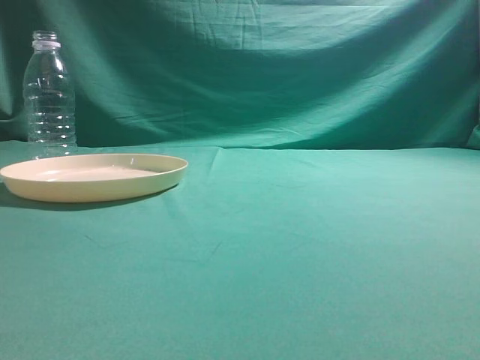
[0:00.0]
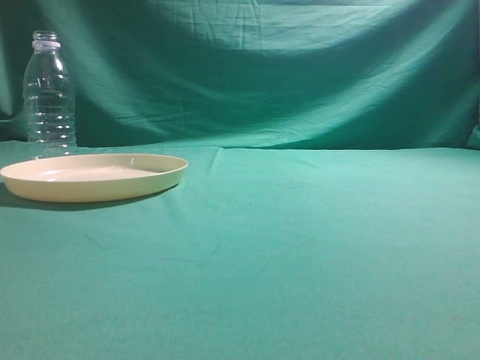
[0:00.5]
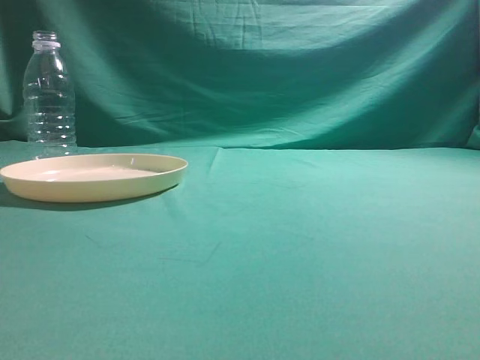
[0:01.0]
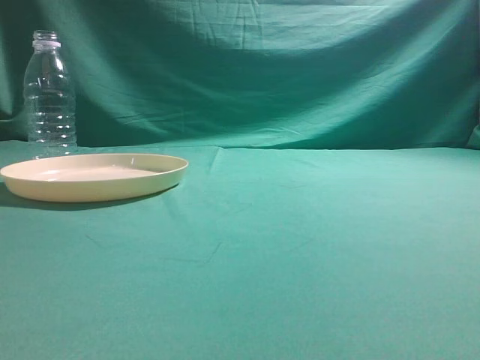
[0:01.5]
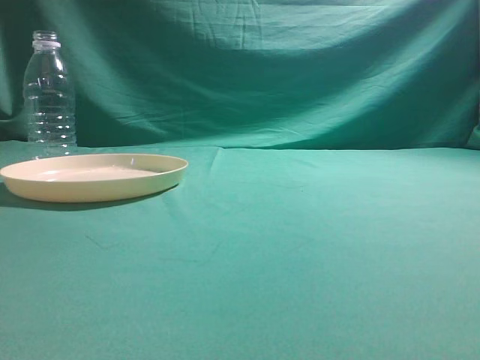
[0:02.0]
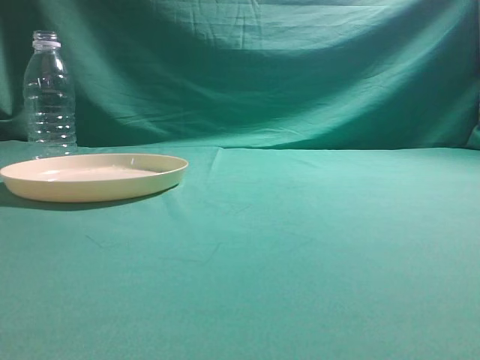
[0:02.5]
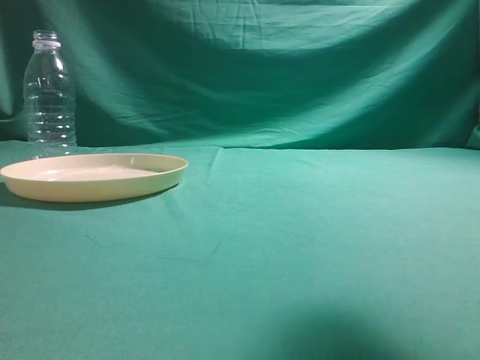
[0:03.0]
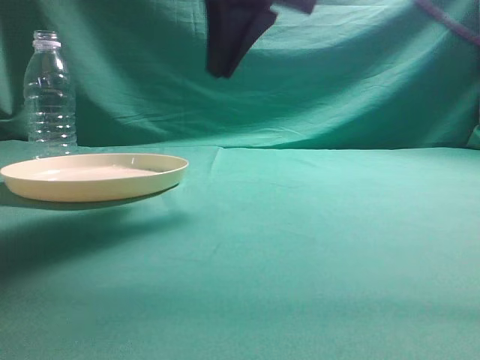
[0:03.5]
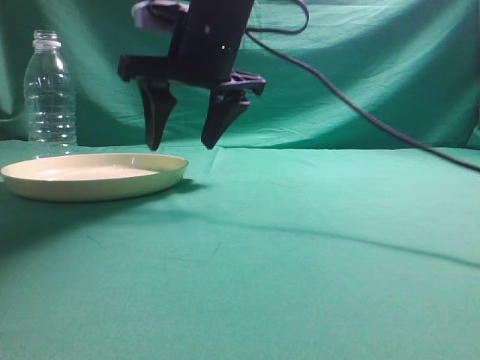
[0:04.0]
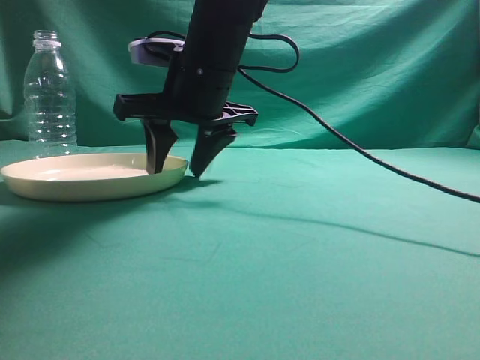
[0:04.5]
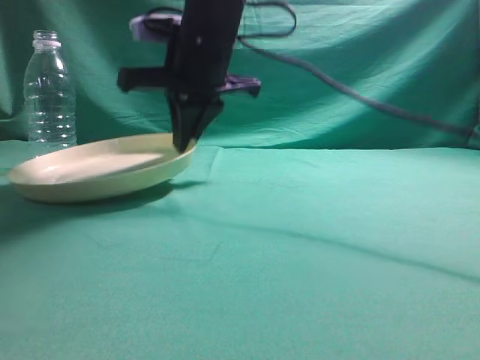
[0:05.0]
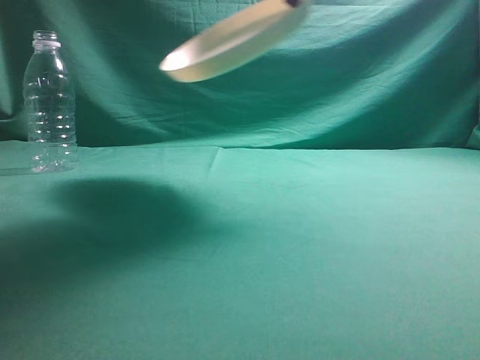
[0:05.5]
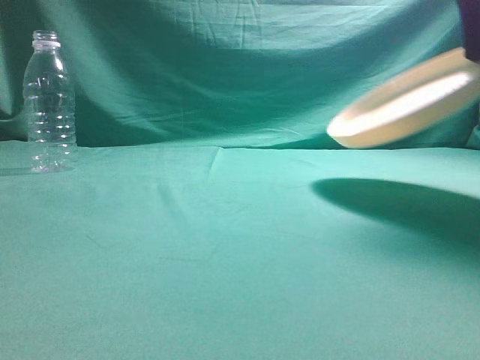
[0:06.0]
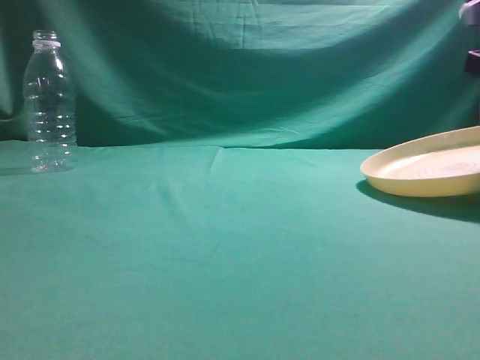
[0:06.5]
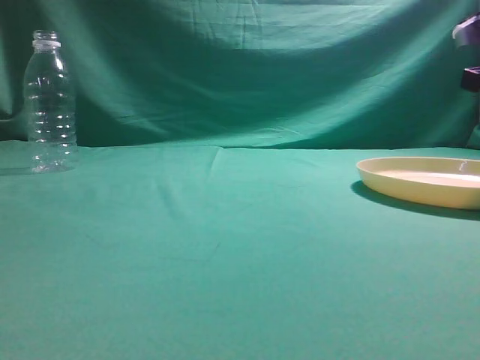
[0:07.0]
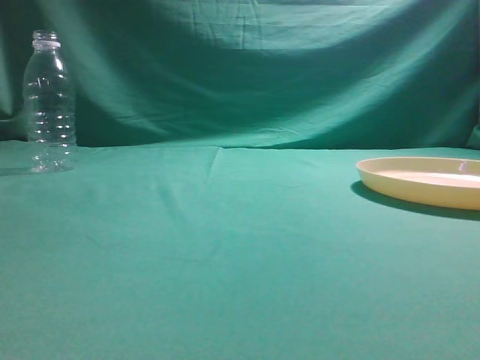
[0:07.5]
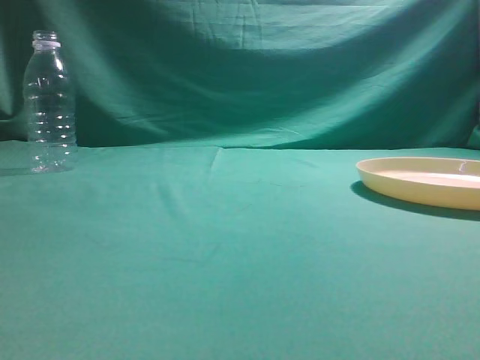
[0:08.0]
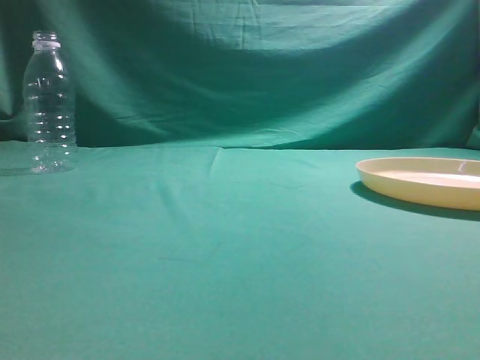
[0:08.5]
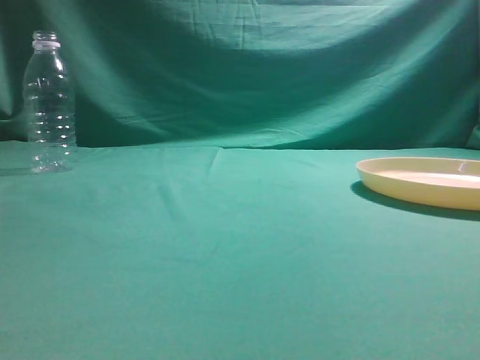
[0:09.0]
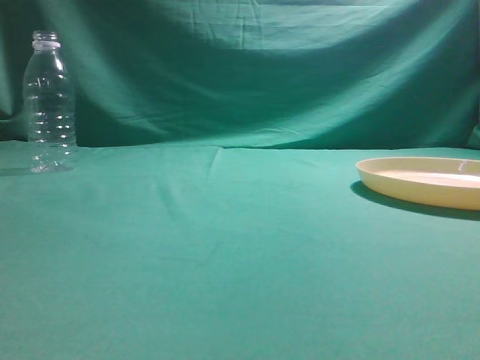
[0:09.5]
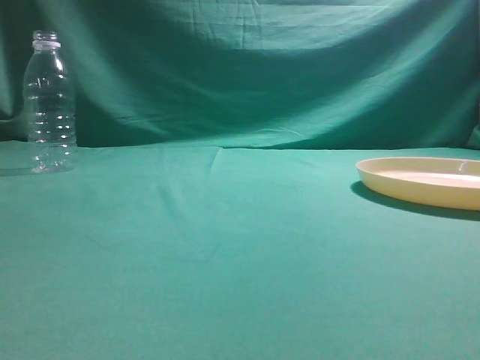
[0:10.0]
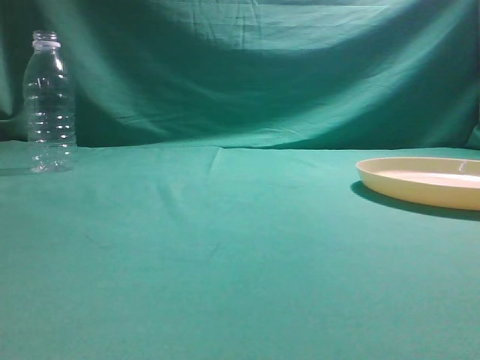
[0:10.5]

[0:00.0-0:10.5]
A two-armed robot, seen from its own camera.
Step, 0:00.0 to 0:05.0: Pick the container that can hold fruits.
Step, 0:05.5 to 0:07.0: Move the picked object to the right side of the table.
0:02.0 to 0:04.0: The right gripper goes about 40 cm forward and to the left, and opens.
0:04.0 to 0:06.5: The right gripper travels to the right by about 30 cm, and closes.
0:06.5 to 0:08.5: The right gripper is displaced backward and upward by about 35 cm, and opens, then closes once more.
